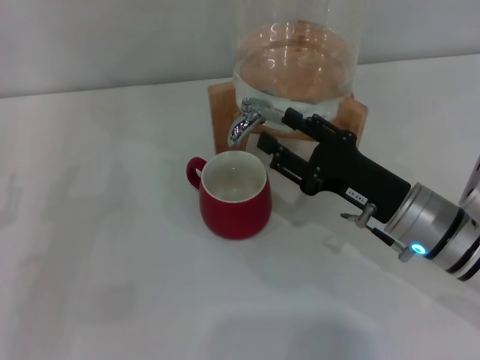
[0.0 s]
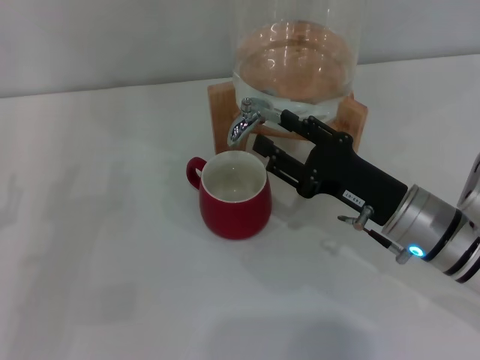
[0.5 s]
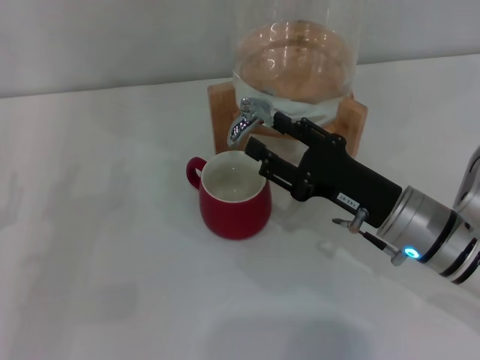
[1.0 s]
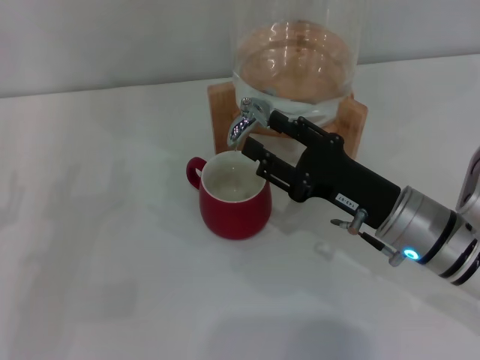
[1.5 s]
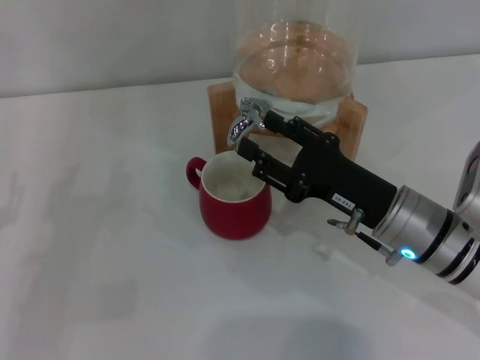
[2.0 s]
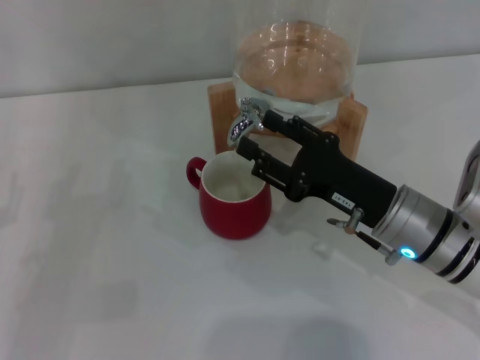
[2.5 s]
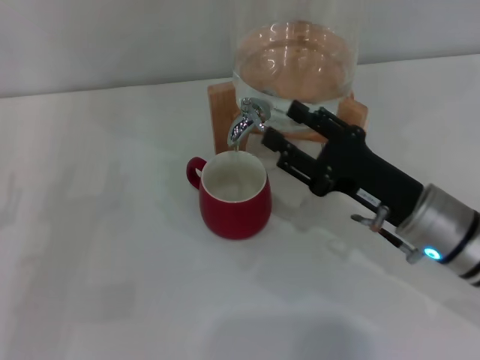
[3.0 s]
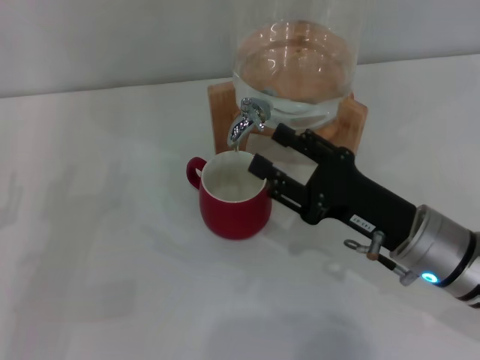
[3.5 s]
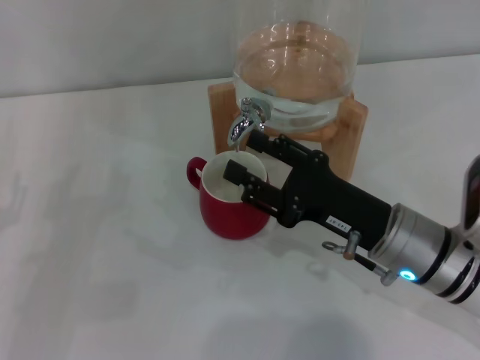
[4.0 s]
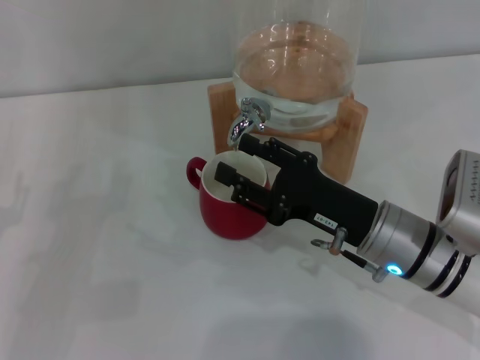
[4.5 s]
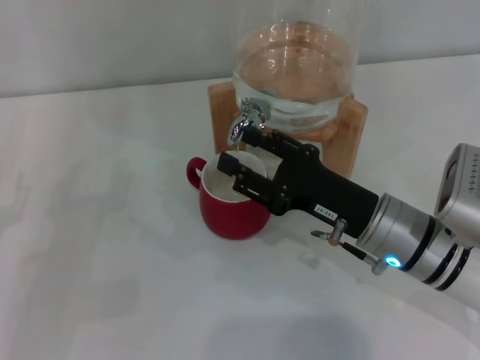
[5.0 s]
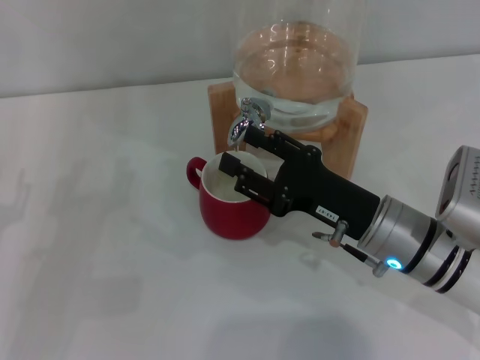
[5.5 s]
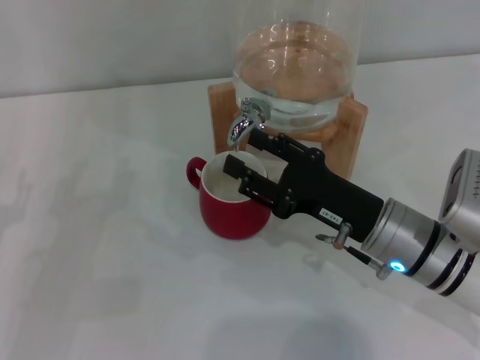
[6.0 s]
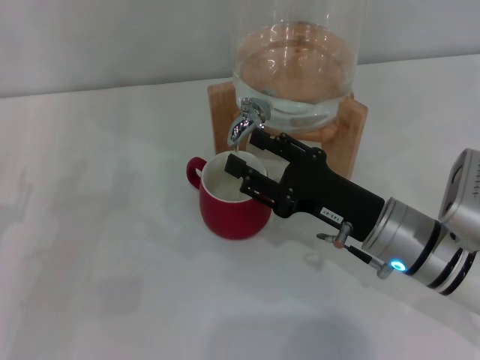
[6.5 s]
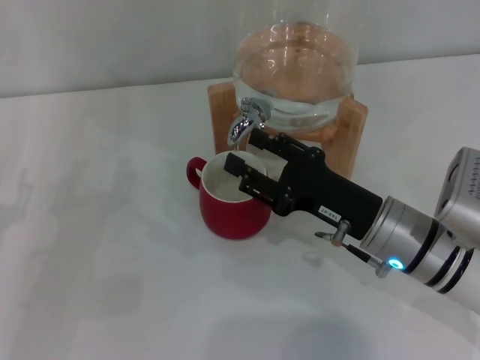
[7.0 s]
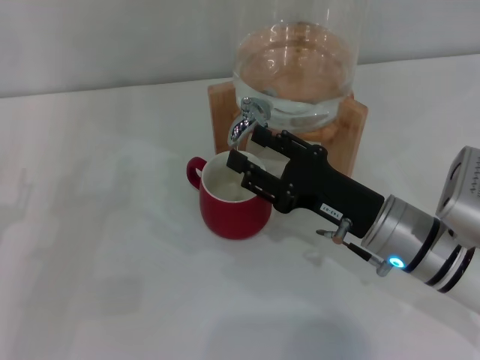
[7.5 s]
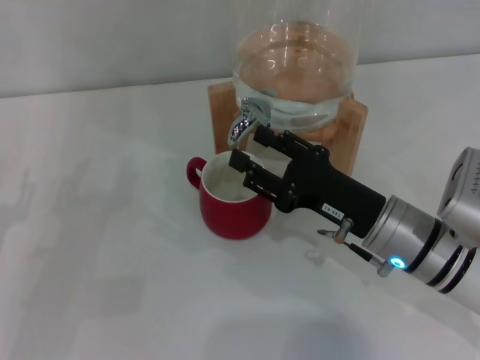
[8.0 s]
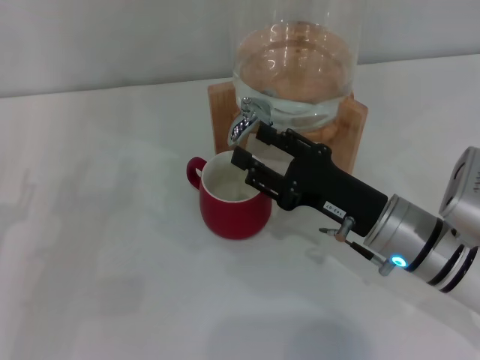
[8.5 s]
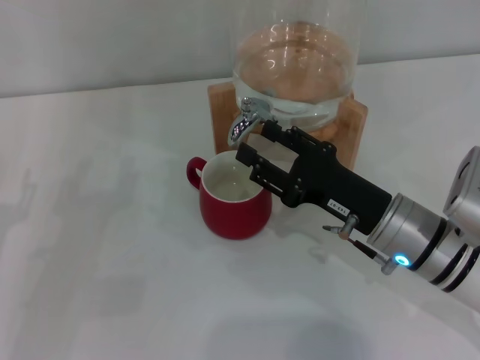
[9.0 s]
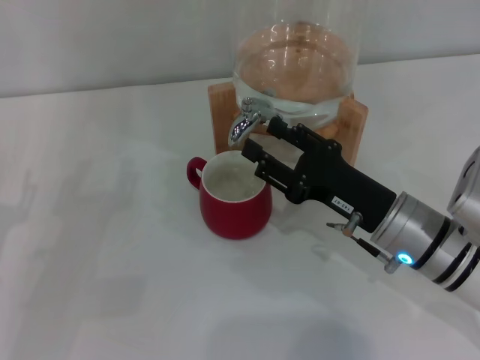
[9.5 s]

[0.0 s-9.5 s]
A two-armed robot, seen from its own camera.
Task of the whole recording: the left gripper pick up the red cup and place it horizontally under the faucet, the right gripper turn on the faucet to fill the cup, and then turn off the faucet.
Step, 0.0 to 2.5 s: Open the dispenser valve and fill the cup with water with the right gripper.
0.0 to 5.5 s: The grippers stay close to where they were, moving slightly.
5.5 to 7.5 s: Neither gripper changes place.
7.5 to 9.5 s: The two grippers keep their place.

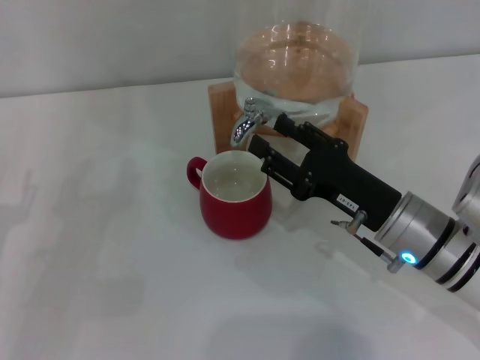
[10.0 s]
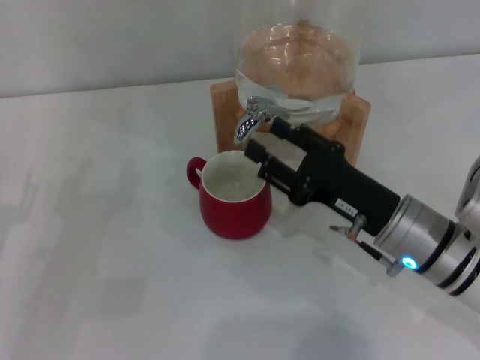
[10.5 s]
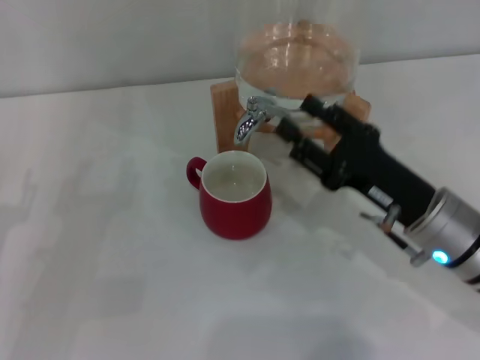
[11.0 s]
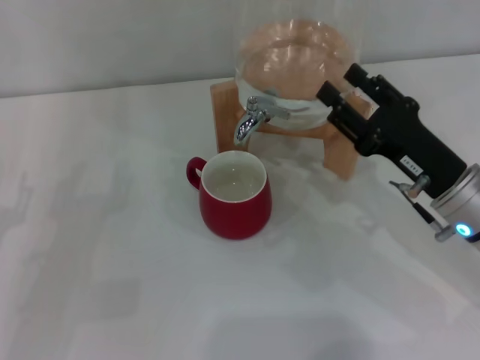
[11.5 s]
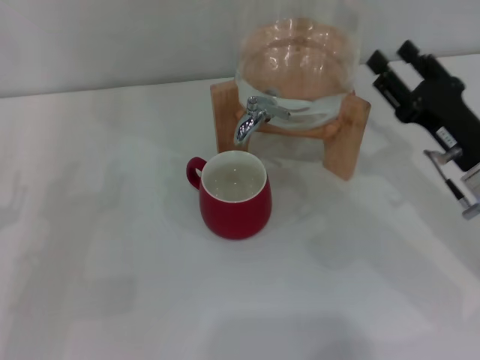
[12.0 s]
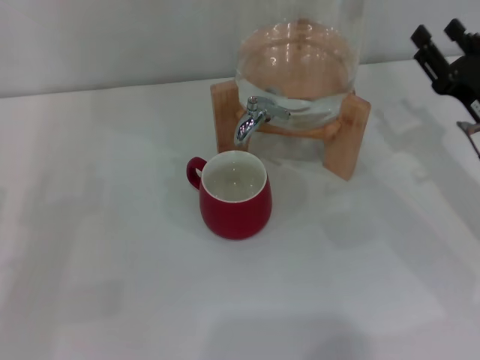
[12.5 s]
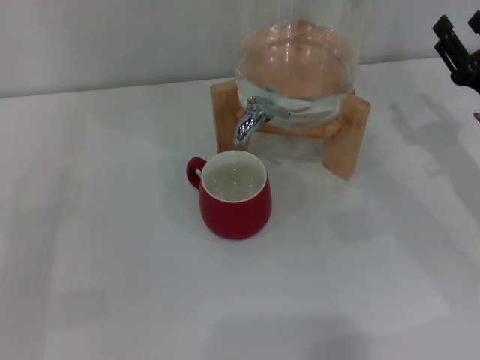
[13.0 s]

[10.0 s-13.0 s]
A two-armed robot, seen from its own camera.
Task of the whole recording: the left gripper pick up the red cup and place it horizontally under the faucet, the right gripper turn on the faucet to fill the cup, and then turn off the faucet.
10.0 to 11.5 s: The right gripper changes place by about 5 cm.
11.5 to 13.0 s: The right gripper shifts approximately 10 cm to the right.
